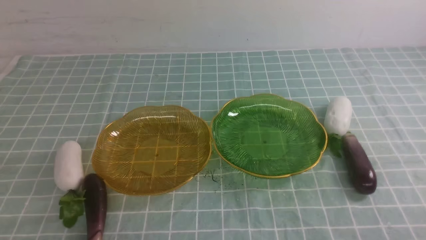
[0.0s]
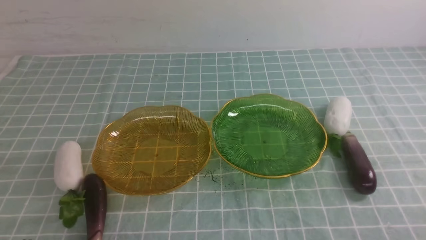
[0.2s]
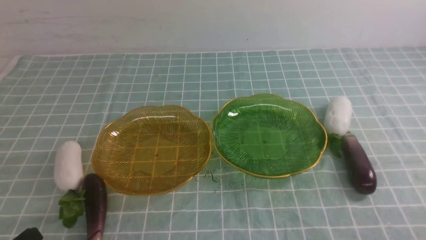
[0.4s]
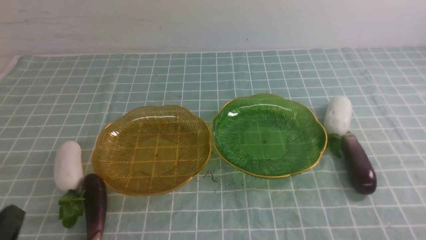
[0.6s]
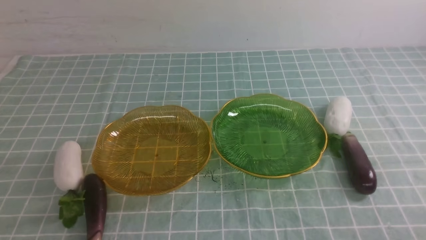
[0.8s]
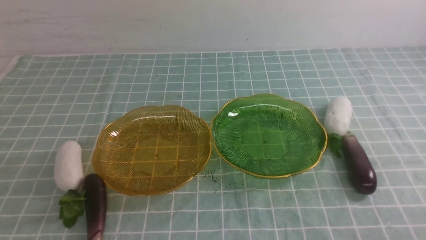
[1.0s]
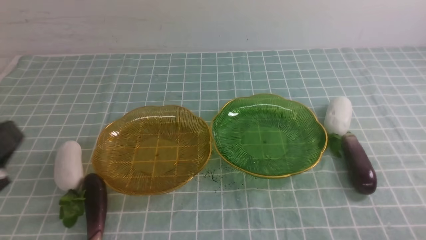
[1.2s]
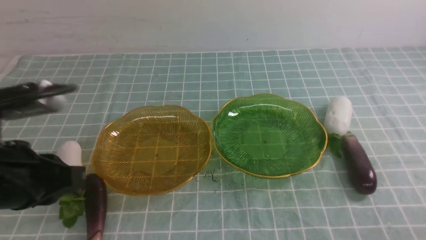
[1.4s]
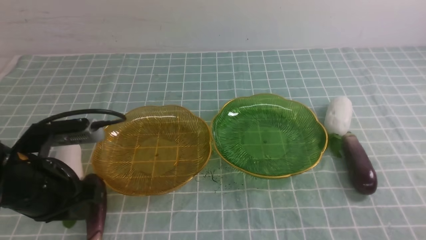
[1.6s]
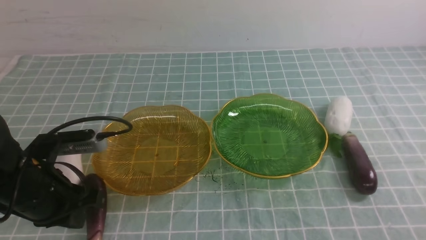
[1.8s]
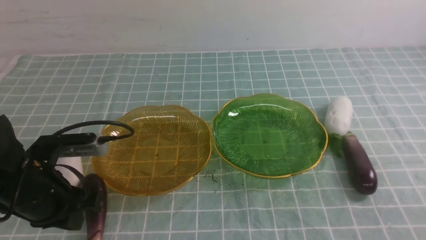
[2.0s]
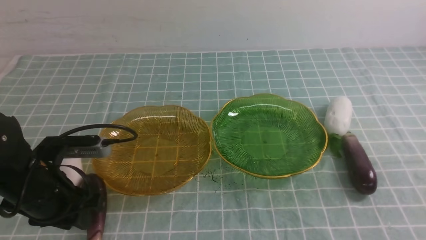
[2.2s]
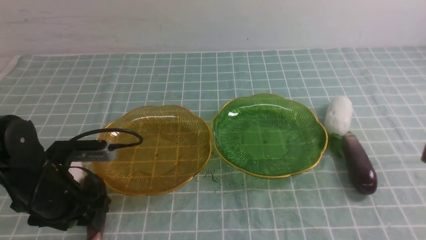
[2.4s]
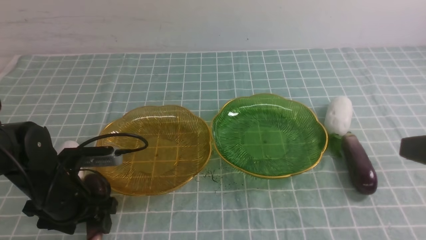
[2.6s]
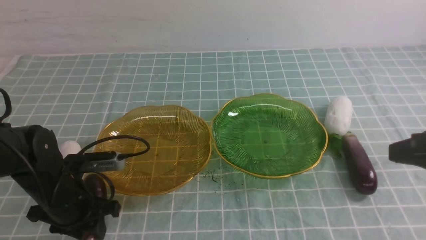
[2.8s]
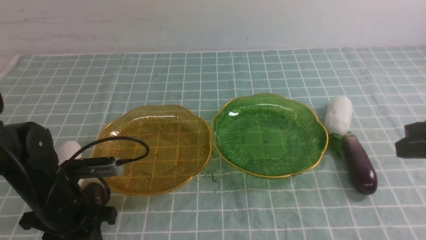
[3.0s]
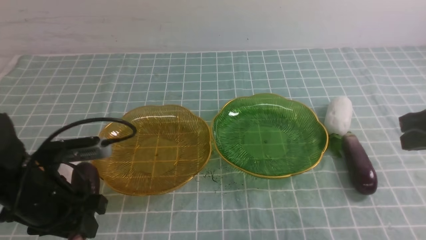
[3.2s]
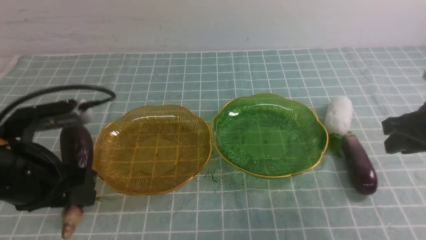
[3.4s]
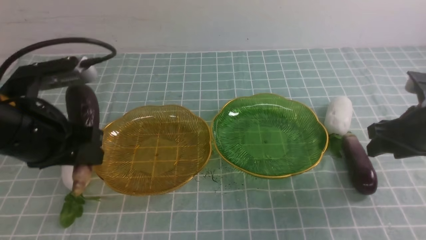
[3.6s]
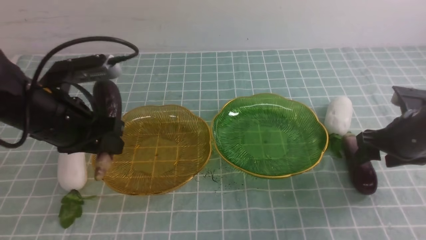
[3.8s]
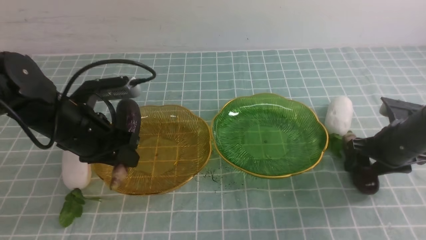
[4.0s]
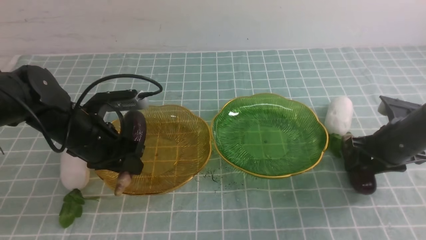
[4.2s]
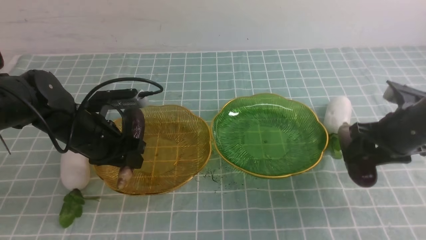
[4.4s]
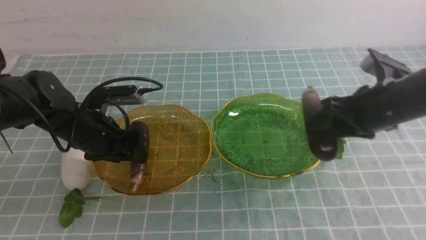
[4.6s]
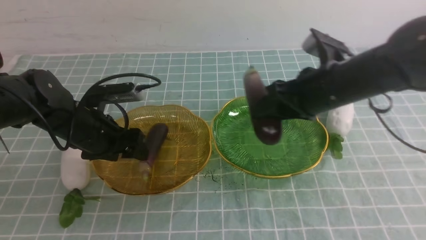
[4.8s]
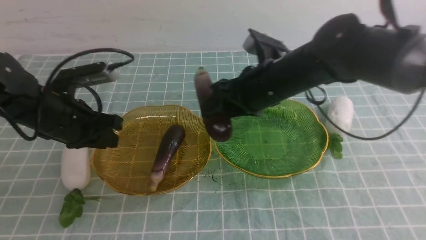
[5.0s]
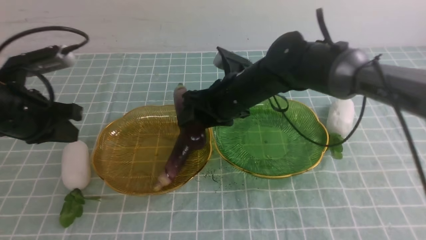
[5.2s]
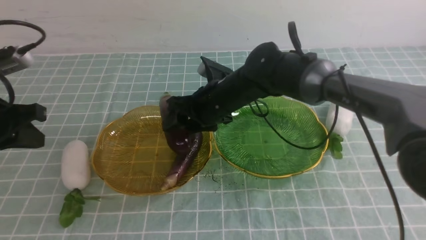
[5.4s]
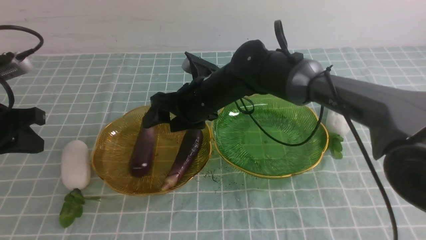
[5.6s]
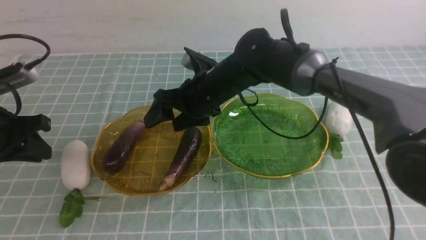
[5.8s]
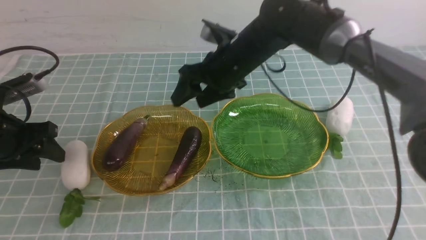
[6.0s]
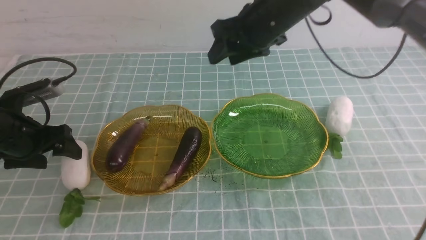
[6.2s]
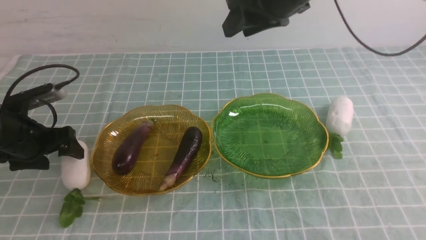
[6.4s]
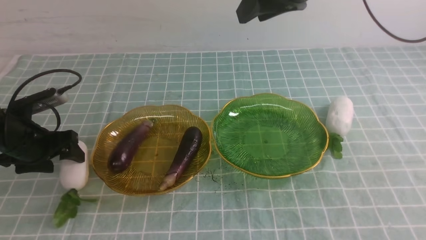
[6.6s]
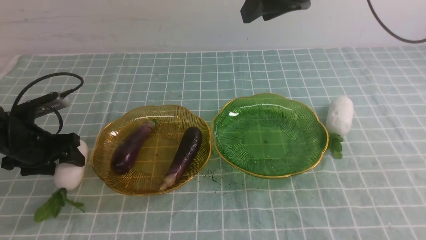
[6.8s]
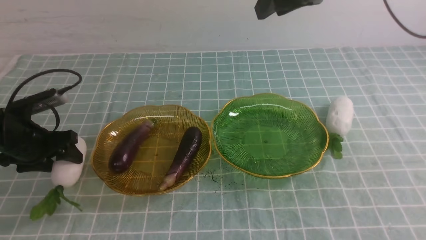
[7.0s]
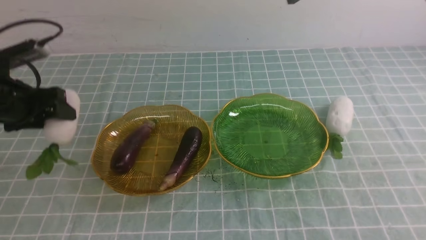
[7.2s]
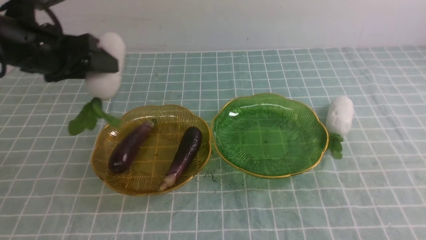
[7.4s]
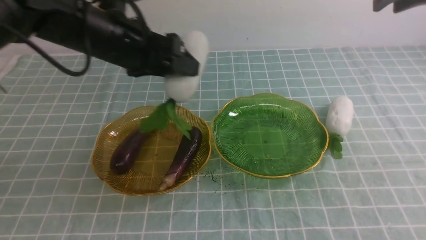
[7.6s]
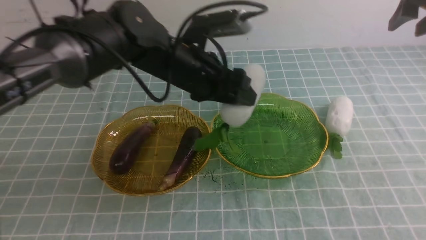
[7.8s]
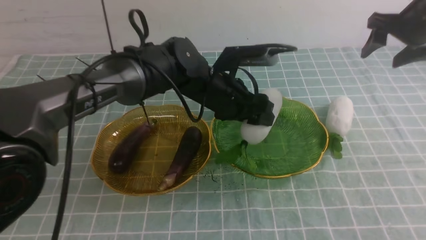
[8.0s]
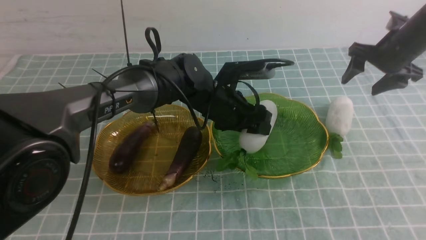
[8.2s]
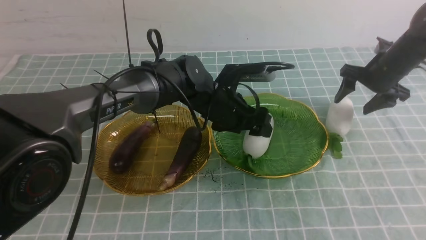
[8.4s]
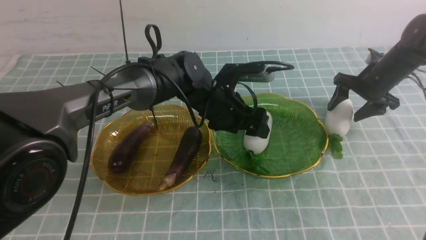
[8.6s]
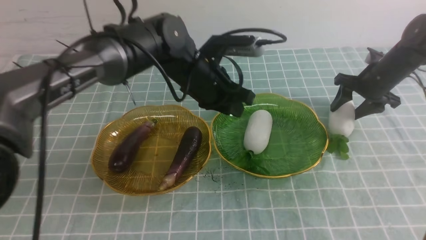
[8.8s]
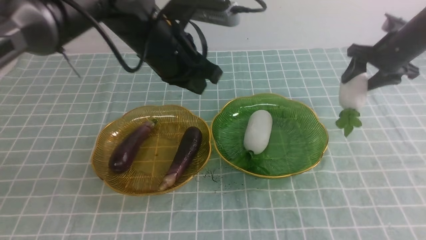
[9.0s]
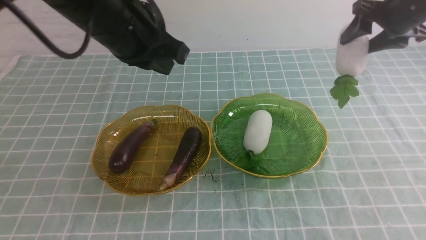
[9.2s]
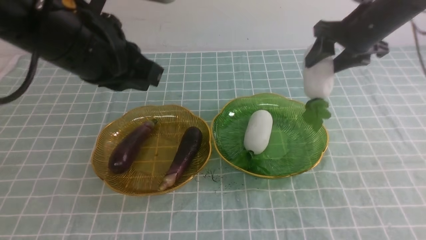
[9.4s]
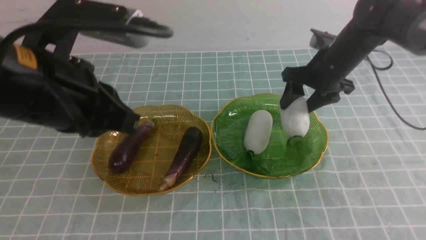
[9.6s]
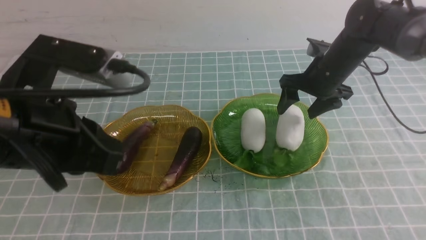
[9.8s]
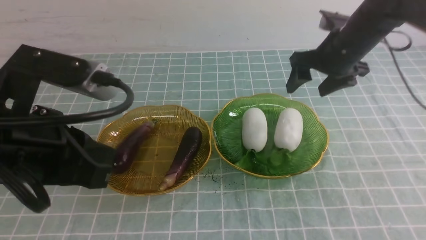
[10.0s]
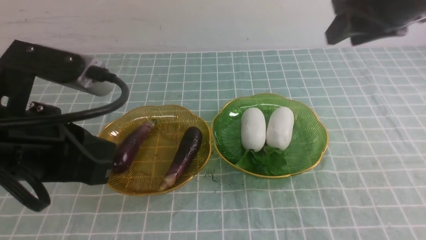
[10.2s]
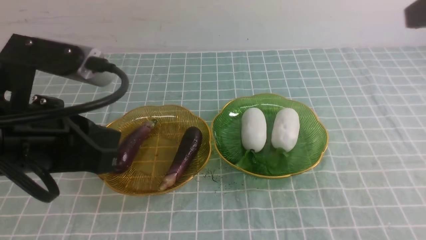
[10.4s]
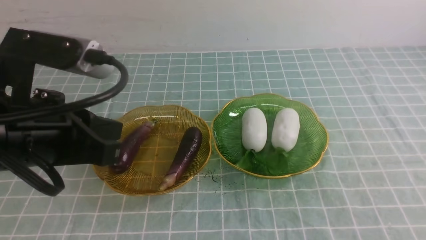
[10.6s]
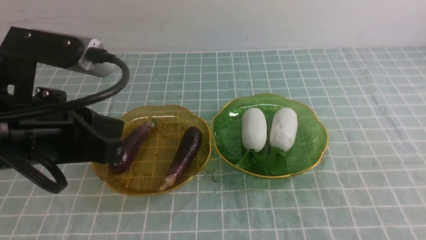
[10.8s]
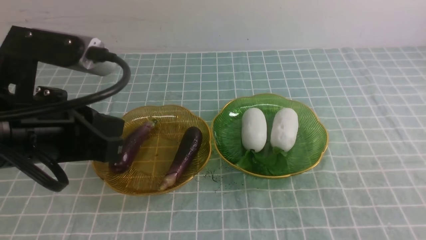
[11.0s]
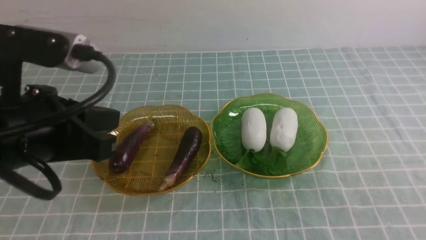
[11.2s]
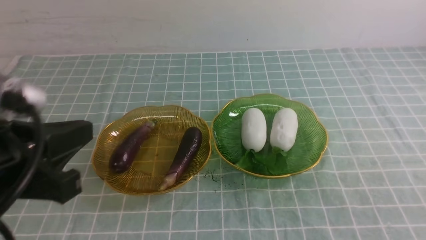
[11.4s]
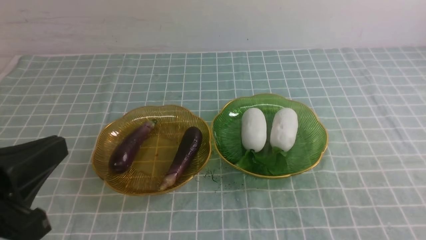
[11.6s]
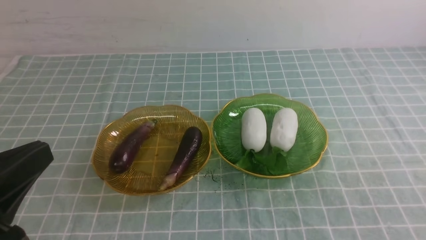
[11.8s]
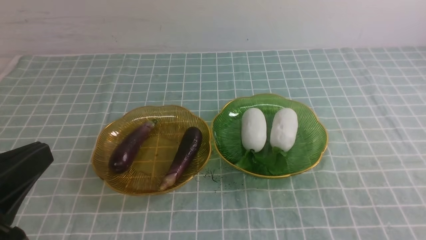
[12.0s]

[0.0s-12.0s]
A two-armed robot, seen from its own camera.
Step, 0.0s to 4.6s: use the left arm to grab an eggplant and put it into the left plate.
Step, 5.0s to 5.6s: use the right arm to grab an eggplant and put it into the left plate.
Step, 5.8s to 8.6s: use the left arm to grab a radish and put it into the right plate.
Step, 8.8s to 9.8s: use the right arm to grab a radish and put it into the right plate.
0.0s to 1.6s: The left gripper heads forward and upward, covering approximately 15 cm.
1.6s to 3.0s: The left gripper travels downward by approximately 5 cm, and opens up; the right gripper is displaced forward and upward by approximately 20 cm.
3.0s to 4.4s: The left gripper is displaced forward by roughly 10 cm, while the right gripper goes approximately 15 cm forward, to the left and downward, and opens.
4.4s to 6.0s: The right gripper shifts some 20 cm to the left, forward and upward. Meanwhile the left gripper goes about 10 cm to the left, and closes, then reopens.
6.0s to 7.6s: The right gripper heads to the right, covering approximately 20 cm. Meanwhile the left gripper goes approximately 20 cm to the right and upward.
7.6s to 9.0s: The left gripper goes downward and returns, some 15 cm each way, and closes its fingers. The right gripper heads downward and forward, covering some 15 cm.
9.0s to 10.4s: The left gripper goes about 20 cm backward and to the left. The right gripper is displaced backward and upward by some 35 cm, and closes up.
10.4s to 12.0s: The left gripper heads backward, covering about 10 cm, while the right gripper goes some 25 cm backward and downward.

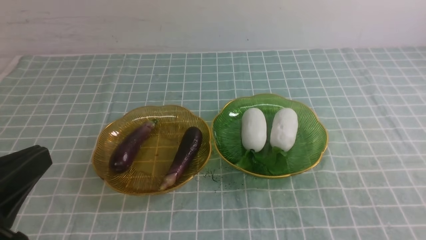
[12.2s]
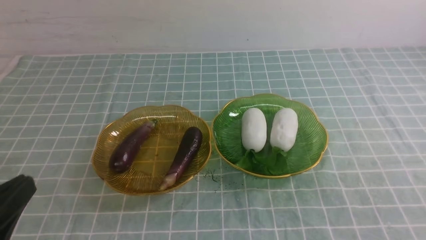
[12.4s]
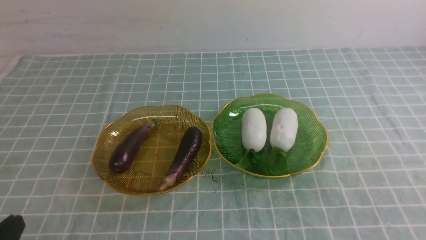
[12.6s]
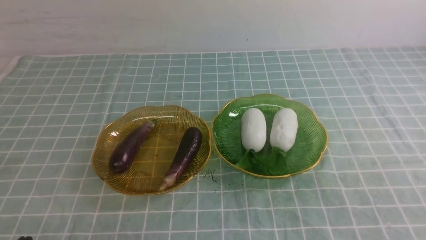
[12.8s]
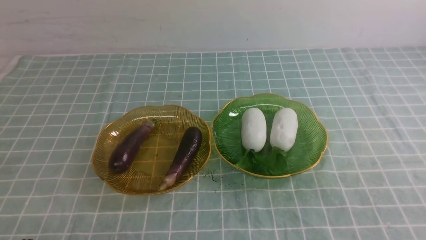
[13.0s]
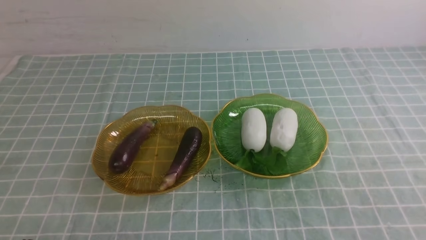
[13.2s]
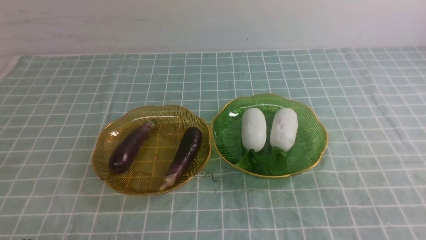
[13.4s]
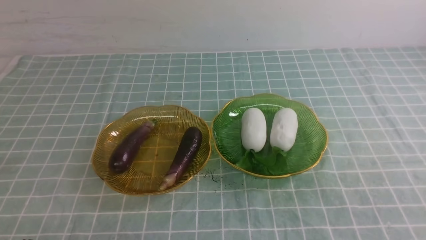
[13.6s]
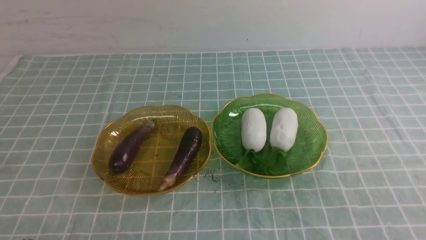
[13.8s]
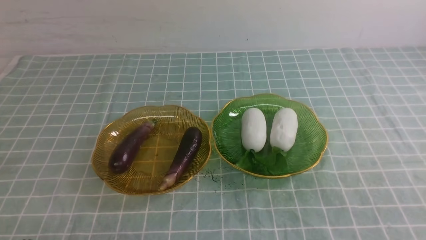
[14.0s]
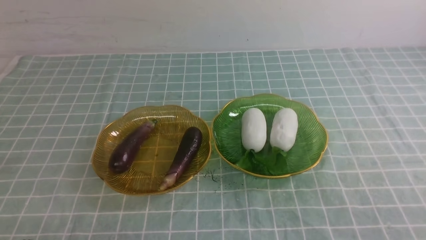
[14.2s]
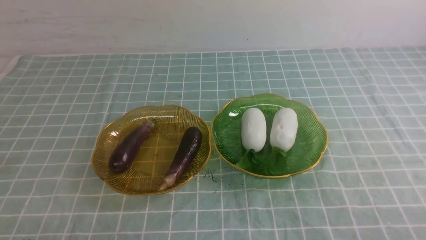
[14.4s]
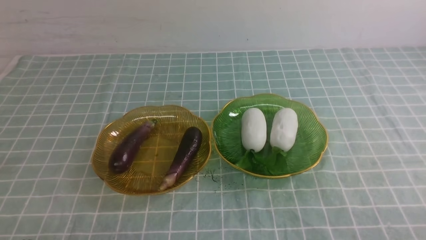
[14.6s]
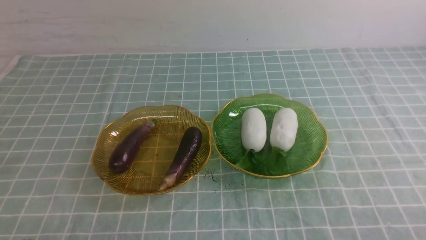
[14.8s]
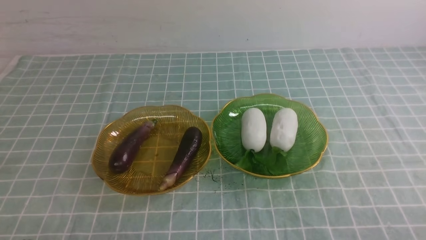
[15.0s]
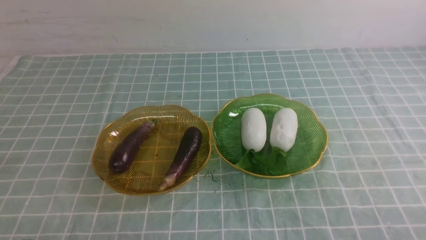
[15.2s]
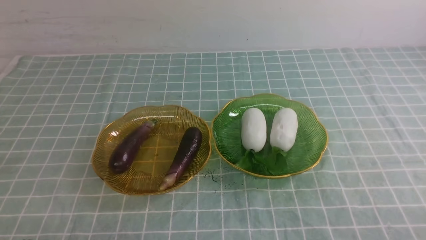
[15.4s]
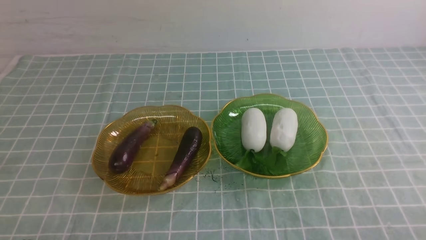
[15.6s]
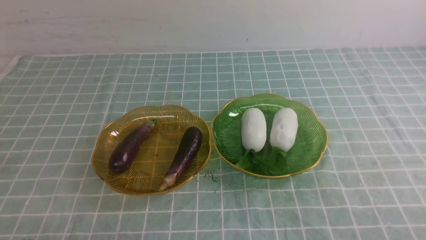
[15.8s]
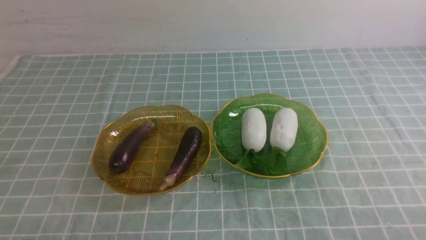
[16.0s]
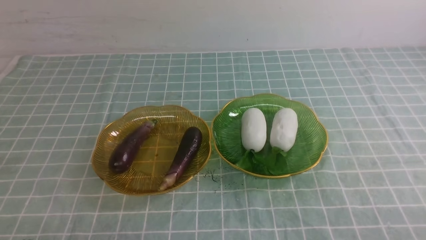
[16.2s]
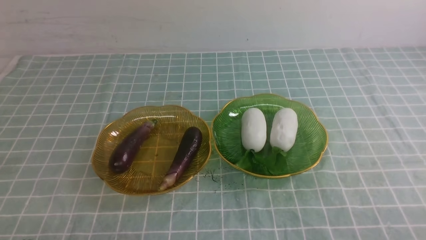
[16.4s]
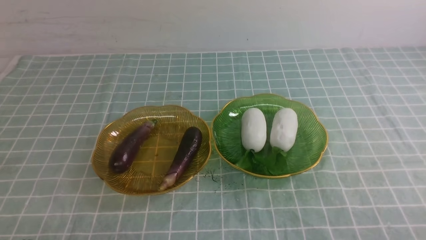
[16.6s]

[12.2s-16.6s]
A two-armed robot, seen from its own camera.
12.2s to 13.6s: The left gripper travels downward by roughly 15 cm.
15.2s to 16.6s: Both grippers stay about where they are.
